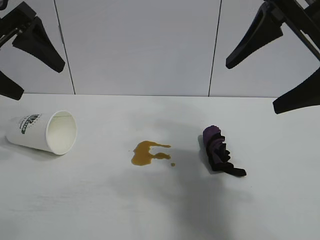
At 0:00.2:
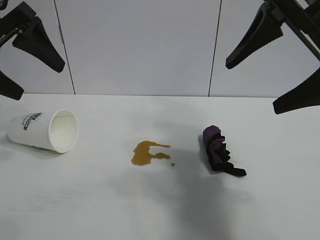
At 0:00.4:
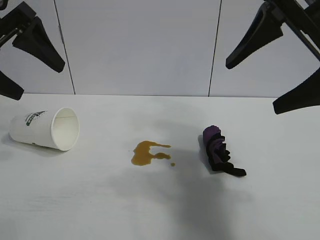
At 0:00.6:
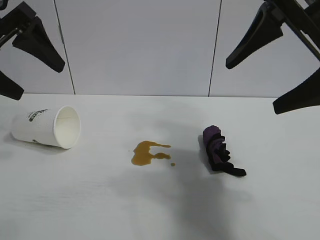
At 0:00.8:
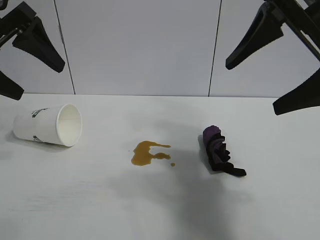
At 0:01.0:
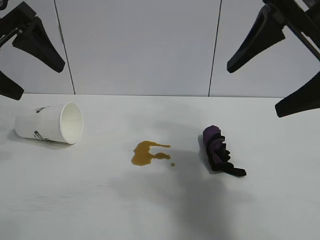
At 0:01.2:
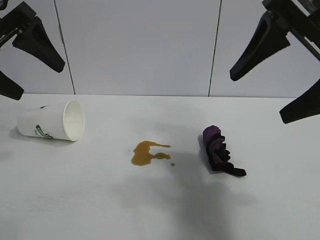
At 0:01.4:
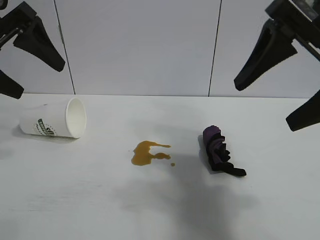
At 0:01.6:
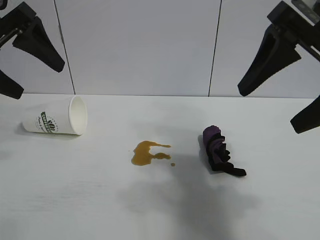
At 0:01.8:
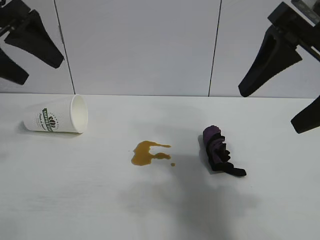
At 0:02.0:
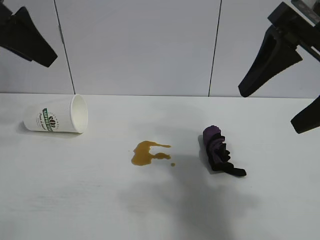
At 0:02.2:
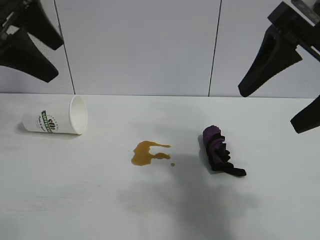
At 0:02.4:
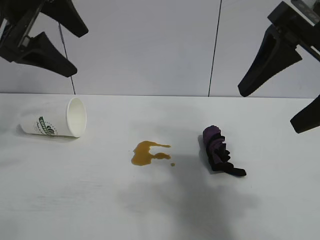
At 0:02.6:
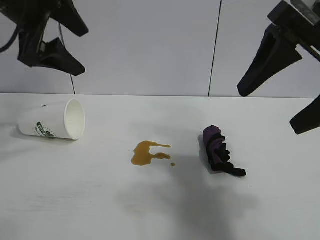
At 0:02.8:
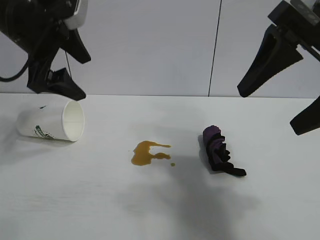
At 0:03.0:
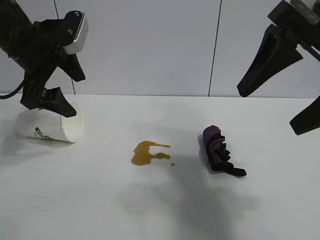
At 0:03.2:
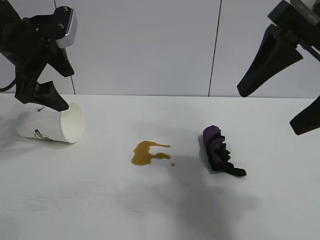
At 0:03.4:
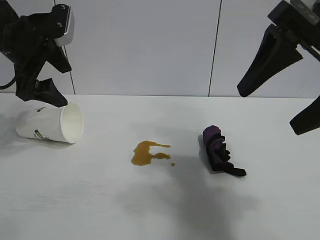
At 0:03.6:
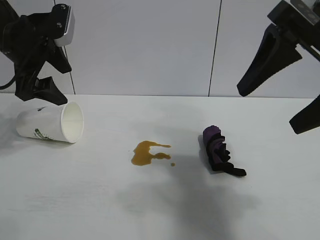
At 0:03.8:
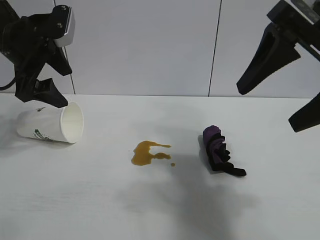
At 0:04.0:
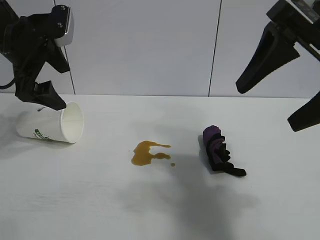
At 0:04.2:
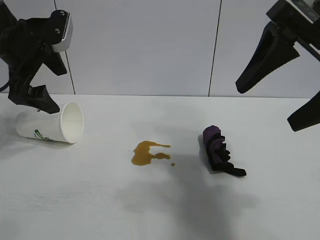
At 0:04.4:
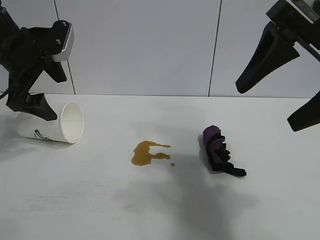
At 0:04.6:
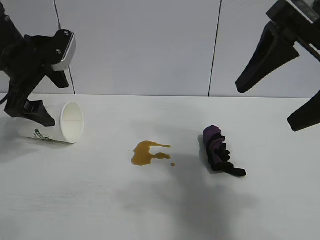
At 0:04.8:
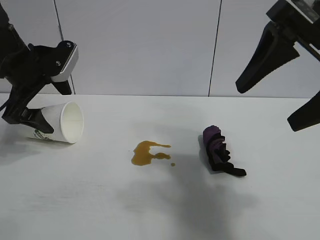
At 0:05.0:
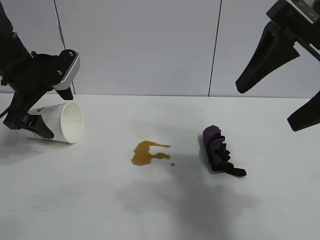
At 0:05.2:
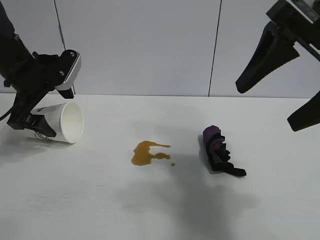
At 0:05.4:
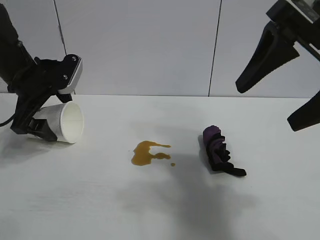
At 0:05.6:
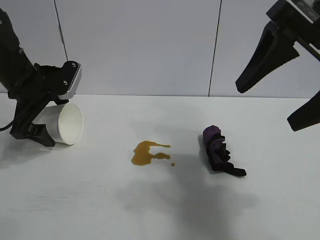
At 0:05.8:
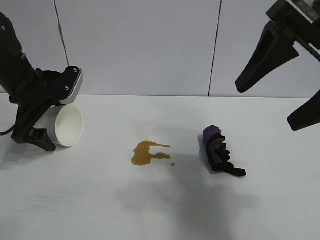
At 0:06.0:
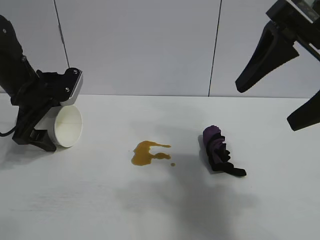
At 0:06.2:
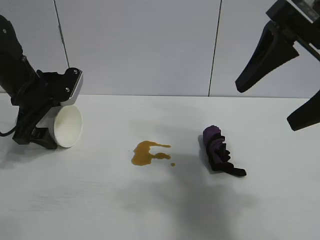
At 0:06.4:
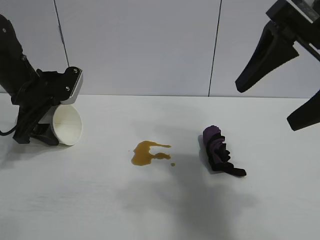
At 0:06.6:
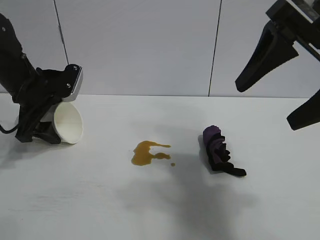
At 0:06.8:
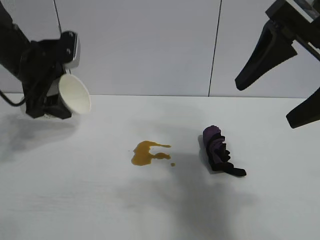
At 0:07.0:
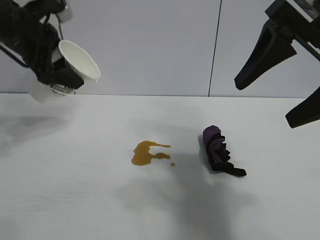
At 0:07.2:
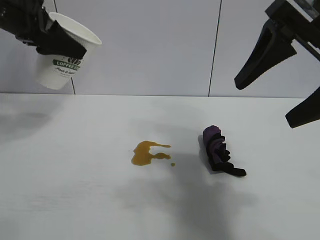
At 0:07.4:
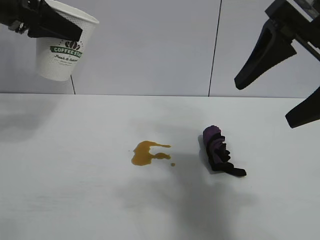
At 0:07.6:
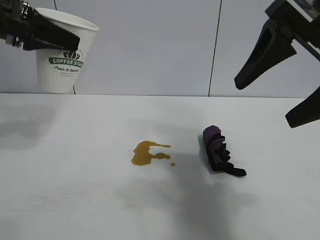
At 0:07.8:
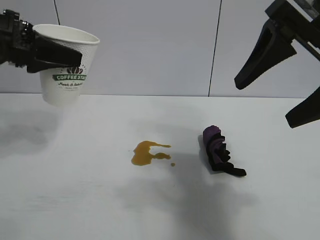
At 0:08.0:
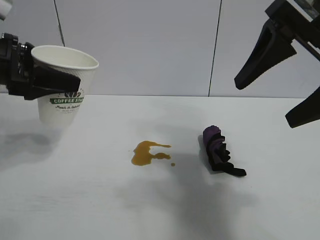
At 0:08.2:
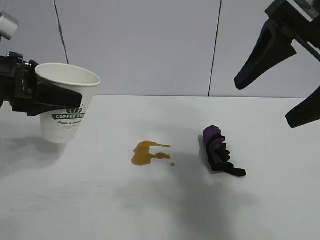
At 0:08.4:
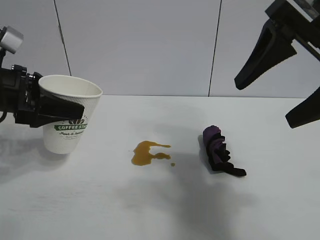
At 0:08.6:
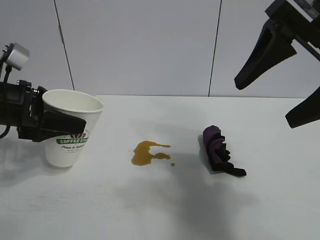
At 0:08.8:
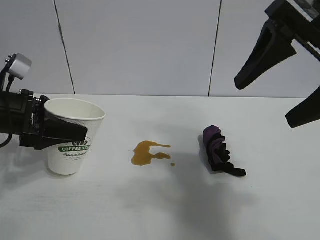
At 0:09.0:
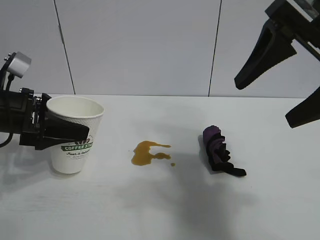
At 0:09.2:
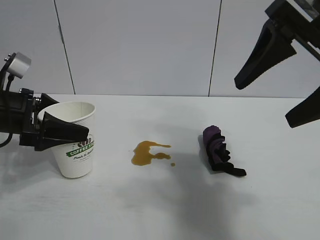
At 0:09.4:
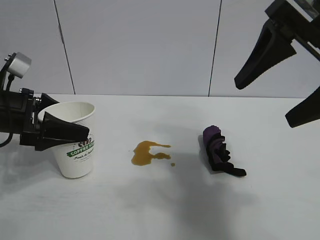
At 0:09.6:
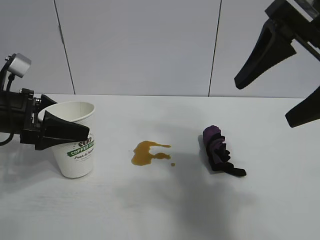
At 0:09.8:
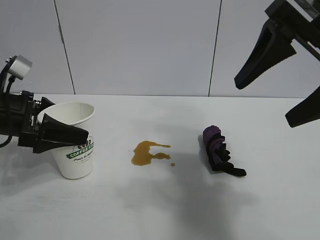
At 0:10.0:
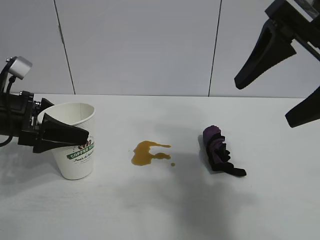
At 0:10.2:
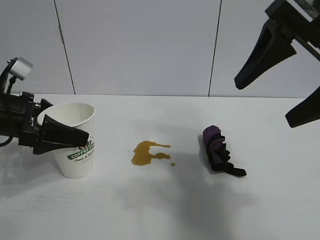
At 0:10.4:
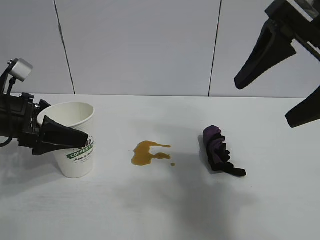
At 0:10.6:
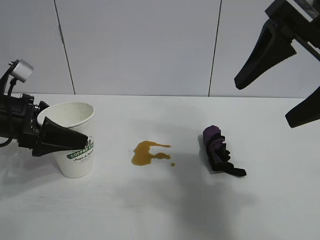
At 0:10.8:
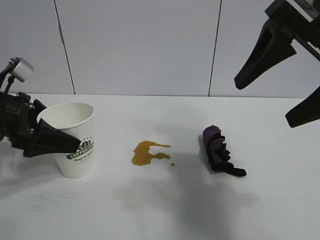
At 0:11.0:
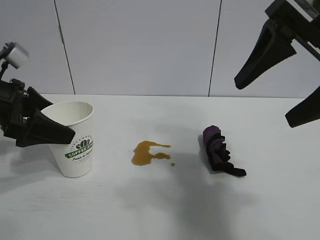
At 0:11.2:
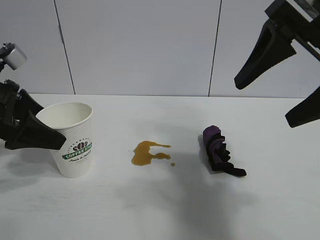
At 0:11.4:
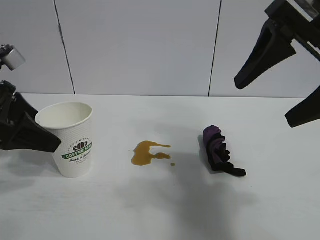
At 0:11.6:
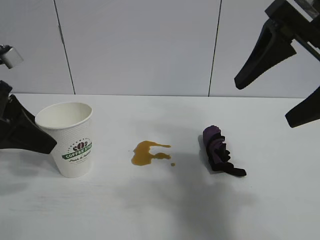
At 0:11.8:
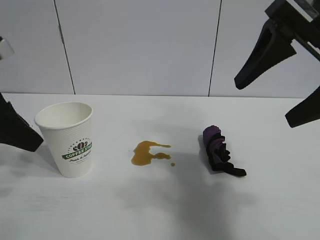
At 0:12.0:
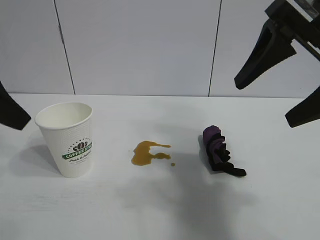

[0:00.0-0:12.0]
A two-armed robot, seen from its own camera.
Task of the whole recording: the left gripper pick up the fallen cup and place it upright, the right gripper grasp the black rag and wipe the stain on the table, the right gripper put the black rag back in its original position.
Step, 0:00.8 to 0:06.4: Grasp the paper cup with left gripper.
Step, 0:06.6 to 0:10.2: Stand the paper cup upright with left gripper.

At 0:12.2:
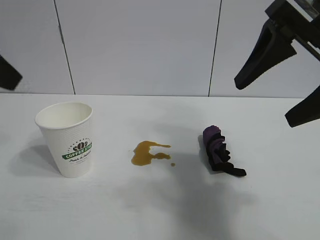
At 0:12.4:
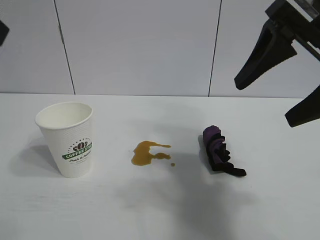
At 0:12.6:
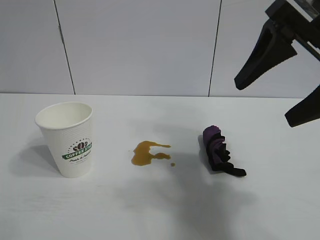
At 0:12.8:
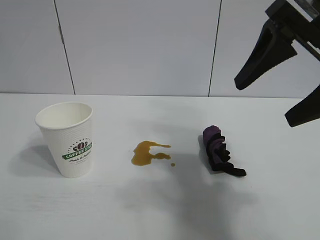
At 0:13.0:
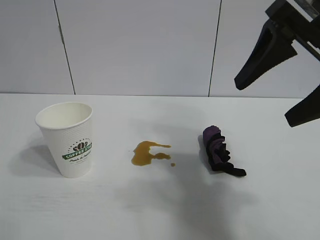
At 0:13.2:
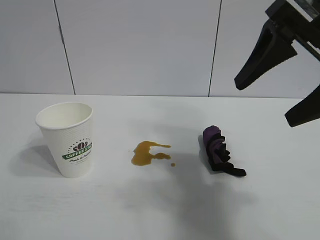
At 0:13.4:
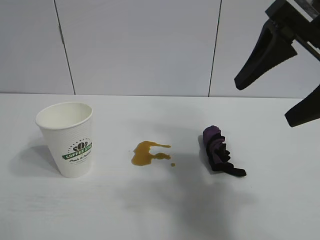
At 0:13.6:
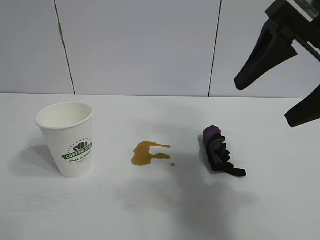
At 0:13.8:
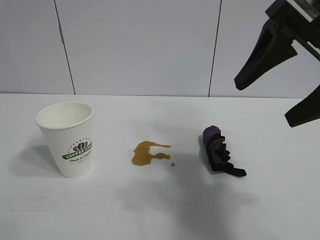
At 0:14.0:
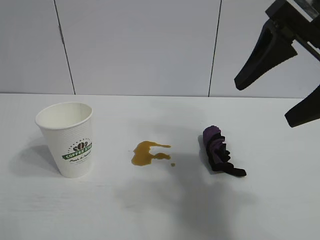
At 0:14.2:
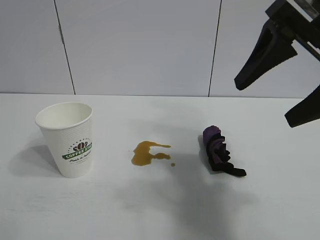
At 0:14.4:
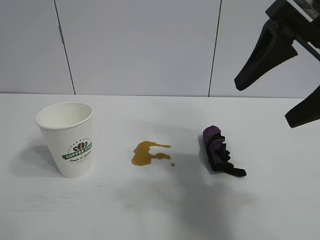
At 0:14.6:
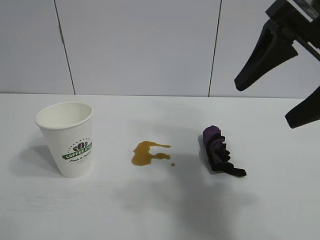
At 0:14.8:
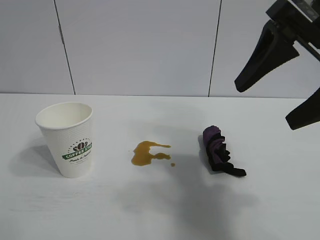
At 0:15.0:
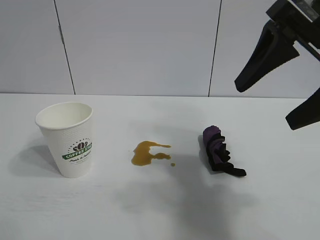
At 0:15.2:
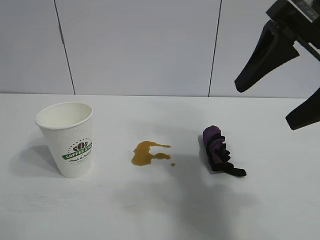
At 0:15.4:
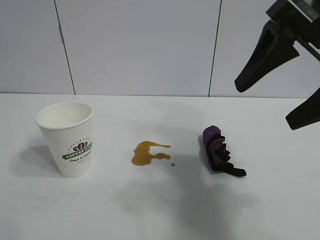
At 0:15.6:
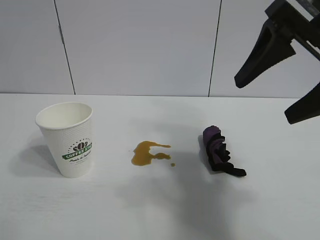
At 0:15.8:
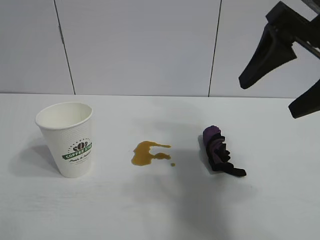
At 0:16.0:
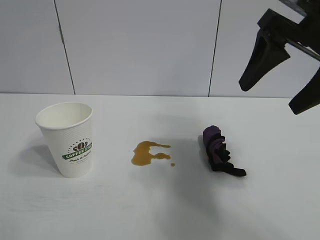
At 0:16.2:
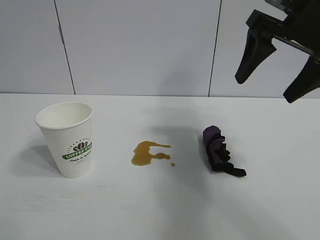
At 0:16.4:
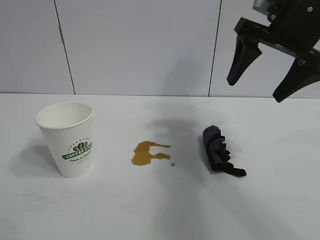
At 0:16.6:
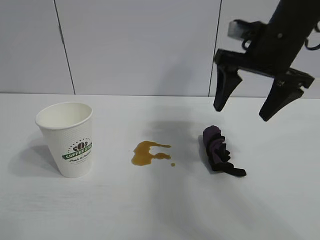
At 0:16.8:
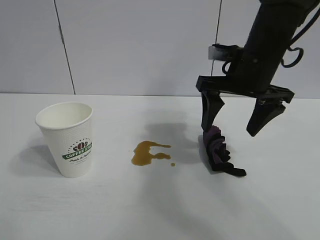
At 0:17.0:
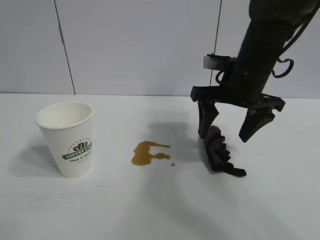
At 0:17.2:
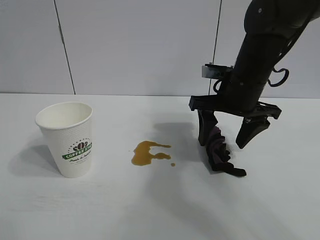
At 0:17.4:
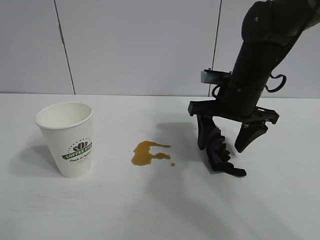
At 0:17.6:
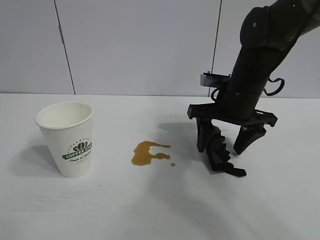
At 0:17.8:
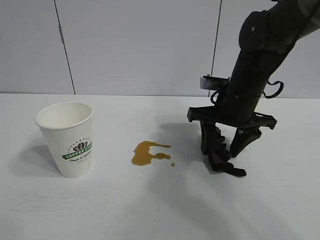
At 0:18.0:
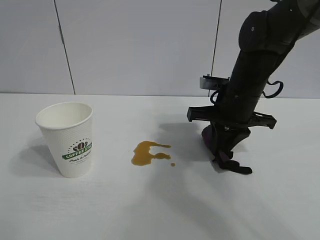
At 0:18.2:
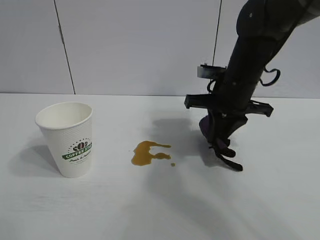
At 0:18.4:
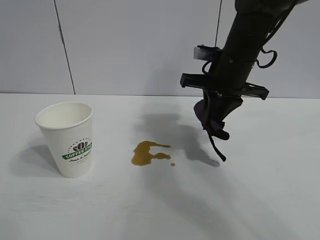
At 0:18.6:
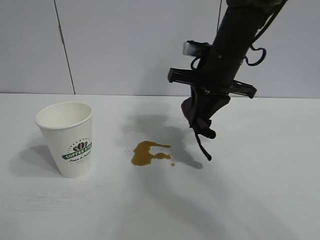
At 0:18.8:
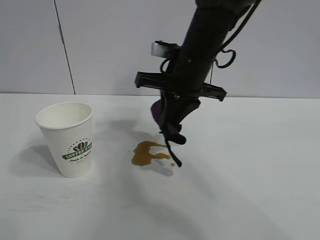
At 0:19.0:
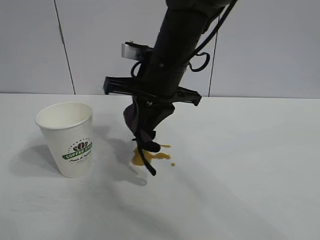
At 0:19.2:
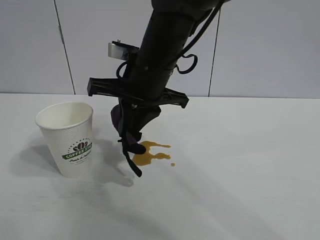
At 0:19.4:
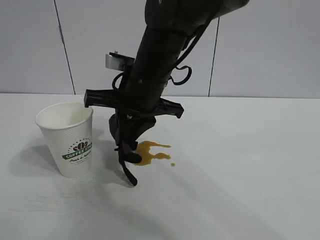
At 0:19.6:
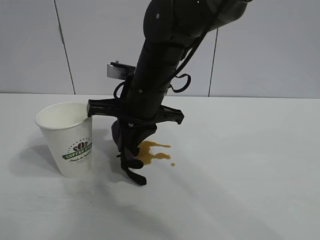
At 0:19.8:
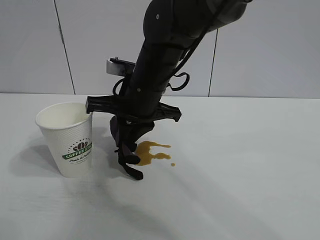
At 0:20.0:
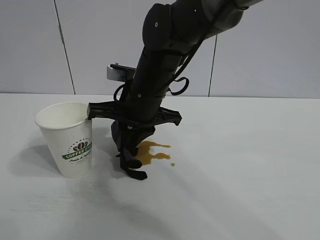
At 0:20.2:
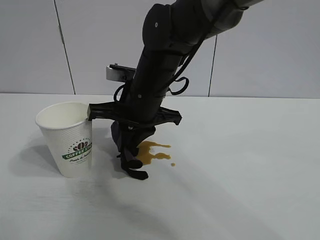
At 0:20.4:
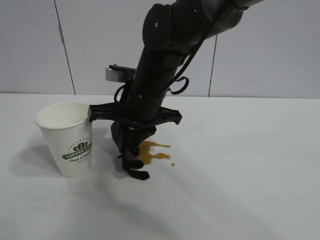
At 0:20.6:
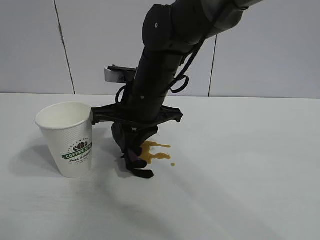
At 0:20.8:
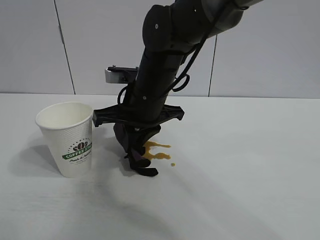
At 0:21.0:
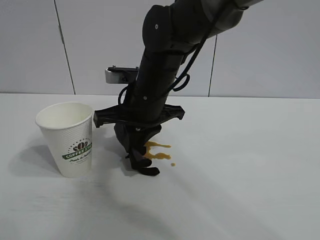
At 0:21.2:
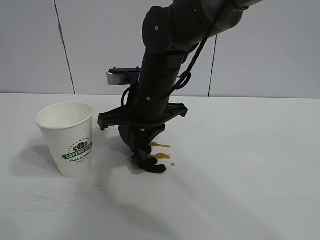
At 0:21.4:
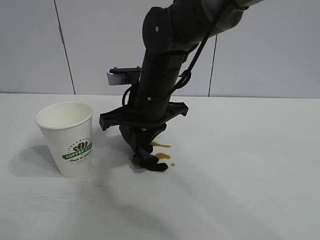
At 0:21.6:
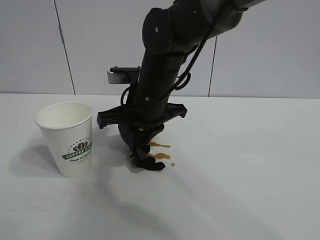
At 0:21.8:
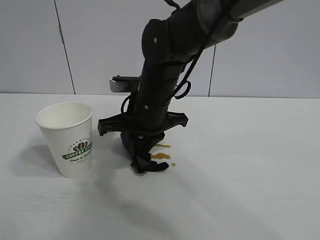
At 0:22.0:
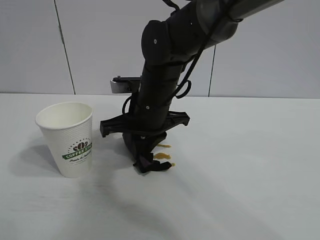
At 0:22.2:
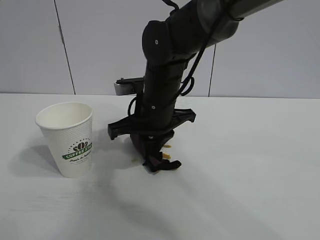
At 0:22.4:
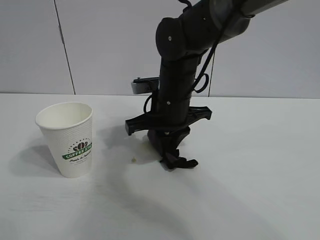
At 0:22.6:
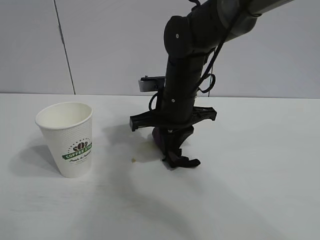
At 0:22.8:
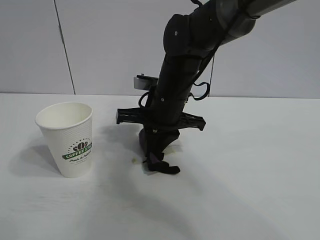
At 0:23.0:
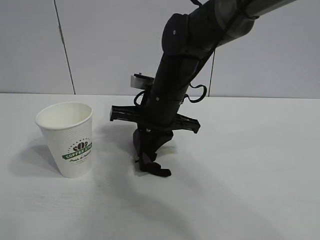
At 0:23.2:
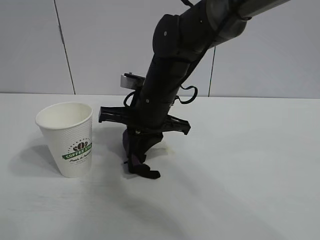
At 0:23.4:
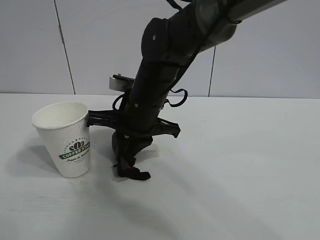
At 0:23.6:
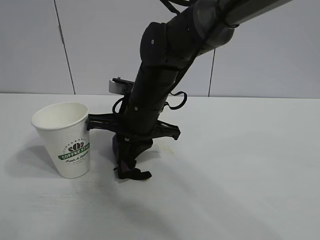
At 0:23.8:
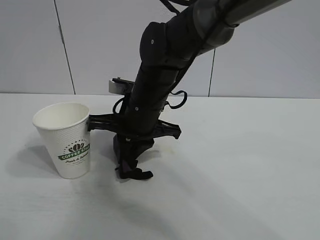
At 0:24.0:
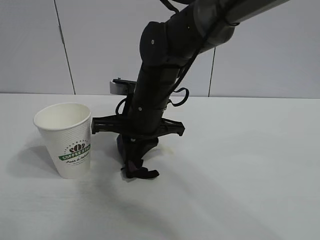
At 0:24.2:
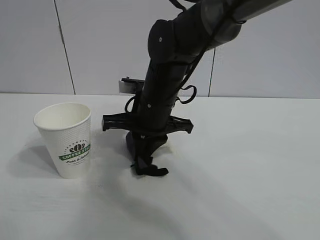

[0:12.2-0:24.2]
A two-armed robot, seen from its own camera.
Task of the whole recording: the left gripper pick up the fallen cup and place it upright, the right gripper grasp the black rag and wipe the stain on the table, the right gripper put the black rag back in its original position.
Step, 0:12.2 to 0:17.8: Grasp the rag with right gripper.
